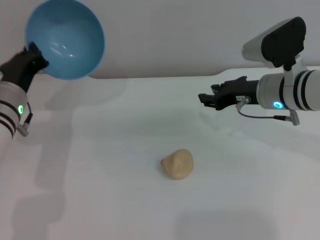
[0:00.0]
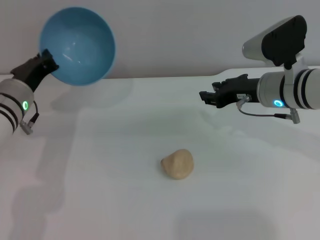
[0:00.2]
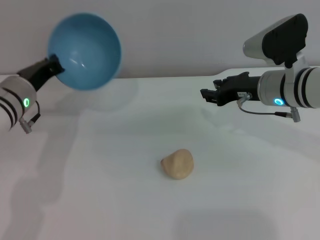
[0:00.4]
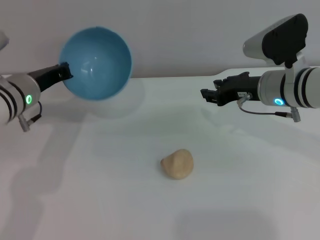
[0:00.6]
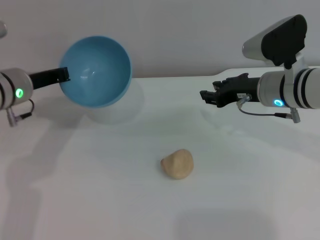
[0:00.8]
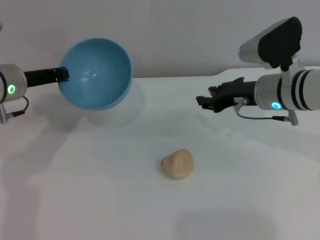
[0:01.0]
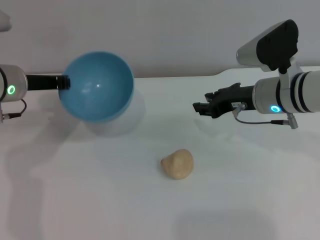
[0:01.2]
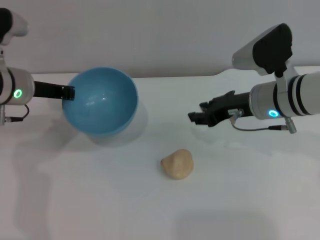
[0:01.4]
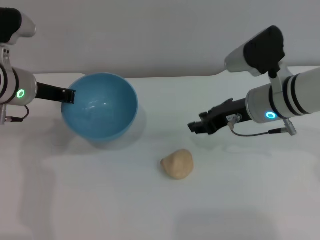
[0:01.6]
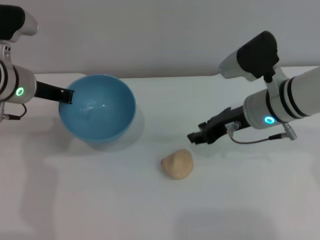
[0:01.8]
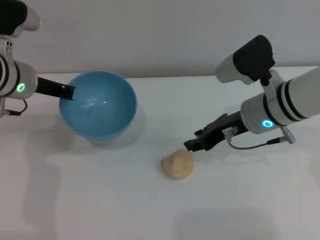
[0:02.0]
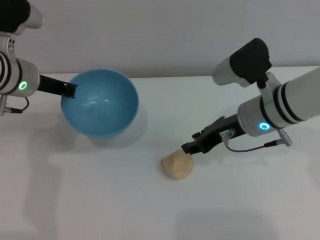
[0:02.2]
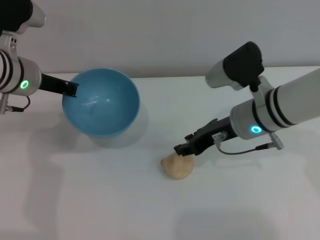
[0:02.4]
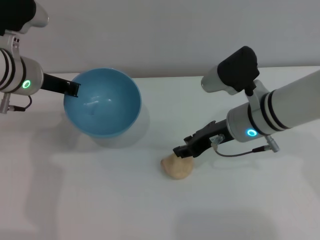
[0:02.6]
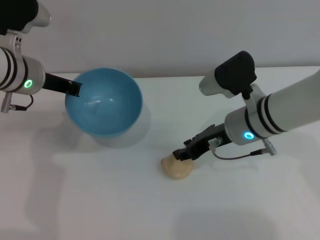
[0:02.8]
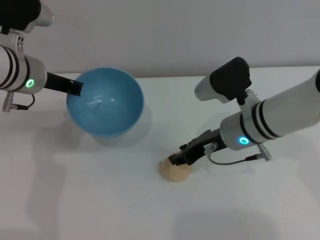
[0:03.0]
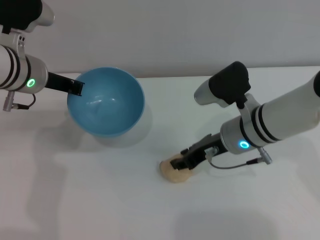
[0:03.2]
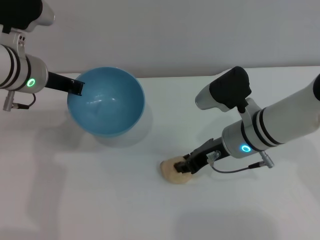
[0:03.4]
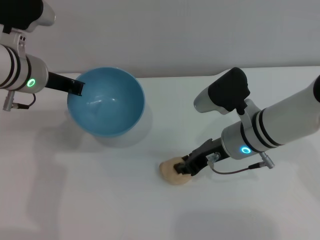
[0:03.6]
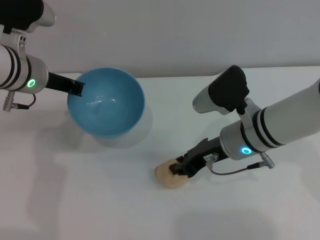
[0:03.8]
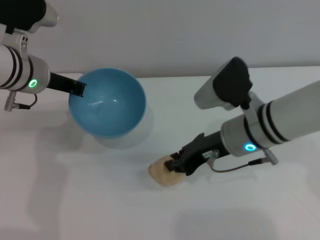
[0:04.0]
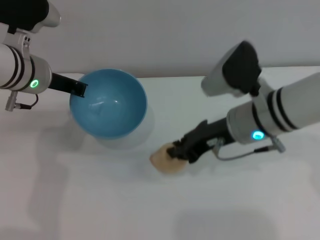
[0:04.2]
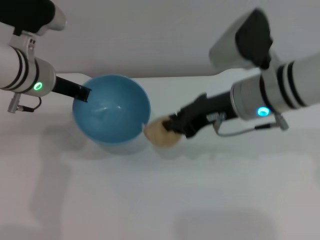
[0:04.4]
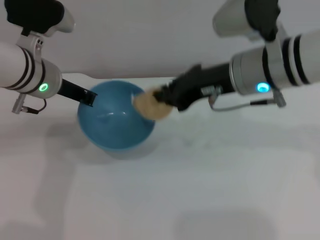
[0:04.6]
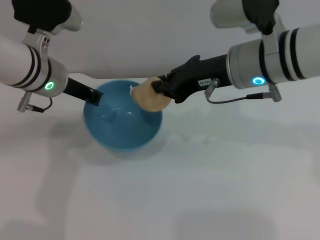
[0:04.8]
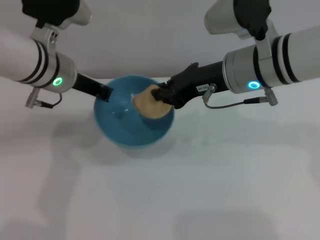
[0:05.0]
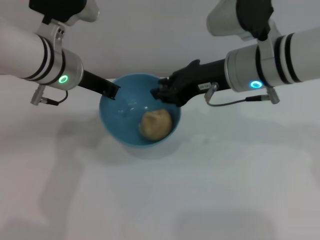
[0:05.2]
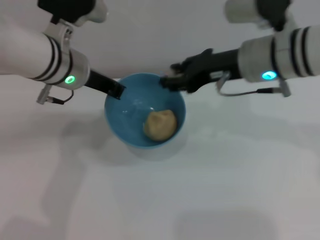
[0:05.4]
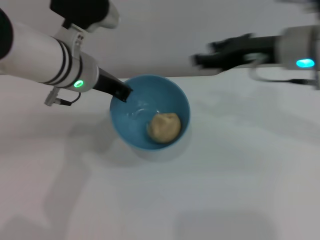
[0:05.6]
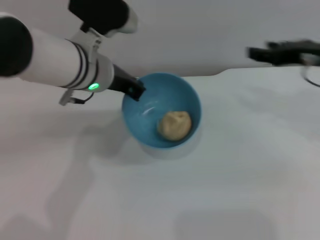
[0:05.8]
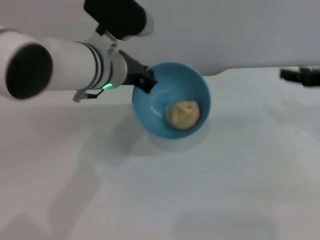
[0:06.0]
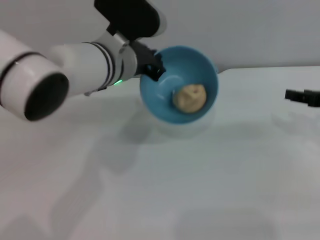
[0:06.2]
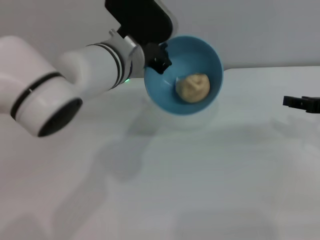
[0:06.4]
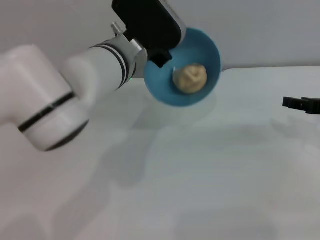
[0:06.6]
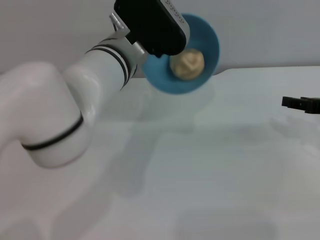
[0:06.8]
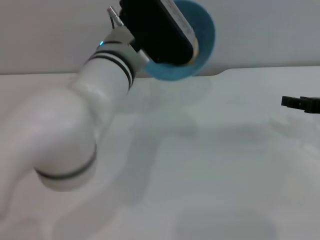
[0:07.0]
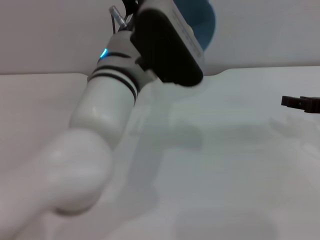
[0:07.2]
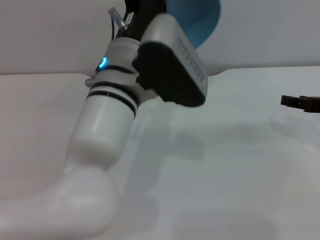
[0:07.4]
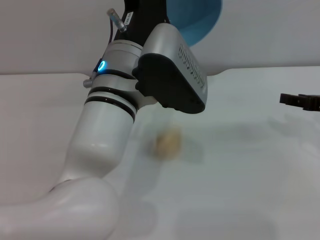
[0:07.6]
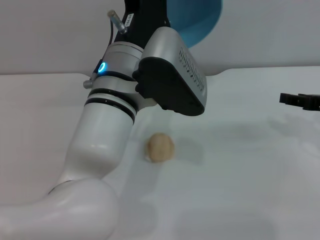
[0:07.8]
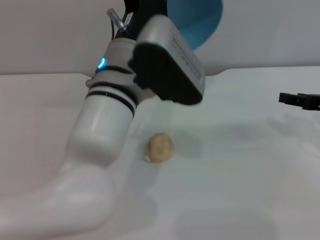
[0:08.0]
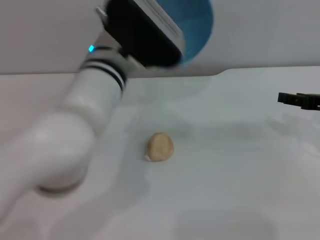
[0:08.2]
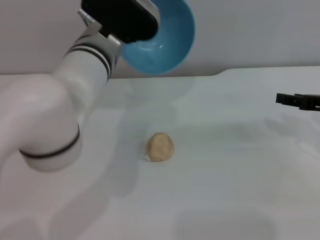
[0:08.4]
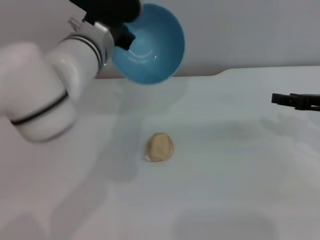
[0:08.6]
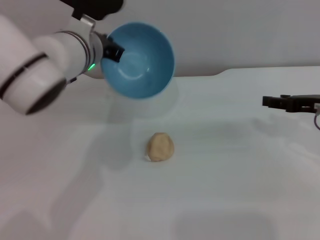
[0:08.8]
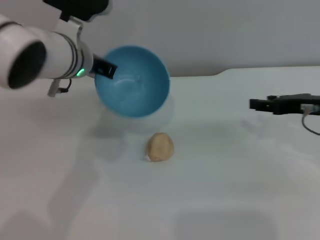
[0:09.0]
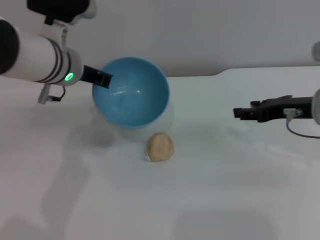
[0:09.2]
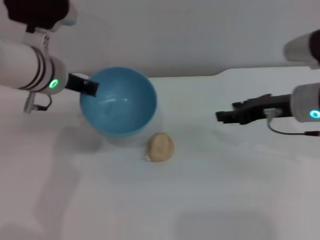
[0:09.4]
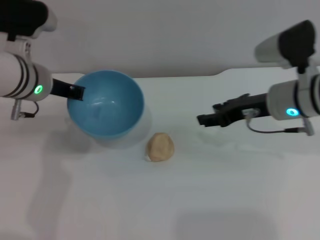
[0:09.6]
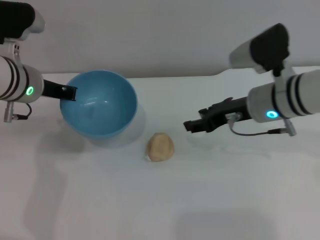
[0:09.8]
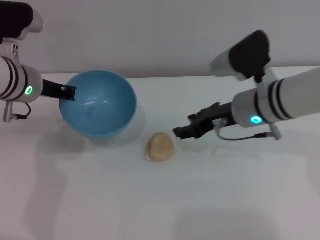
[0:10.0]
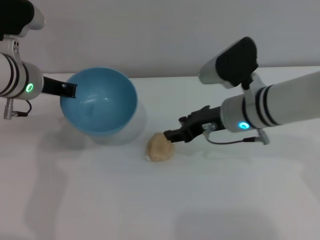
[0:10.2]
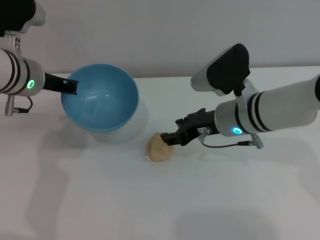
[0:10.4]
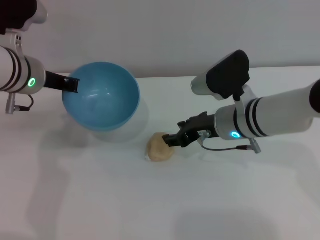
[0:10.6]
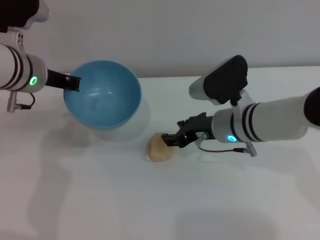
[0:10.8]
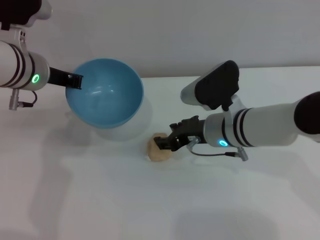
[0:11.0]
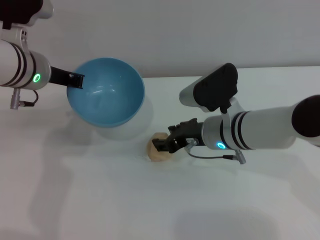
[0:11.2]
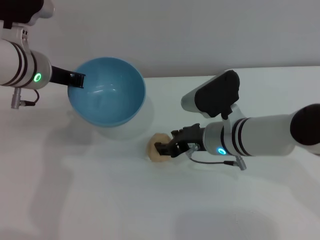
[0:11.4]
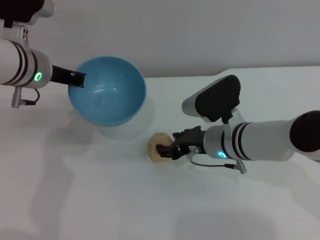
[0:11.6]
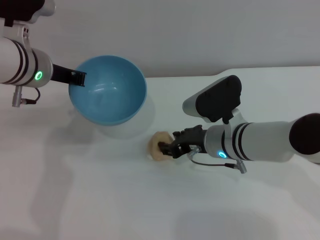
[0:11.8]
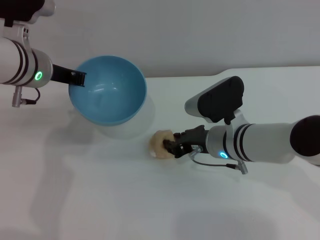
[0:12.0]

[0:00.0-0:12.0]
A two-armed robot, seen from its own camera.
Task of the whole recording: put the egg yolk pastry into the blue bowl and pour it out repeatedly.
Step, 0:00.0 to 0:04.2: Pick up the egg yolk pastry with the right gripper.
Step, 0:04.6 to 0:05.4: Place the egg yolk pastry into the bowl.
Step, 0:05.6 to 0:08.0: Pour the egg yolk pastry out of bowl.
0:00.0 to 0:01.6: The left gripper travels upward by roughly 5 cm.
0:01.6 to 0:03.0: The right gripper ends up roughly 5 cm from where it was.
0:03.0 to 0:04.4: The right gripper heads upward, covering about 10 cm, and closes.
0:04.4 to 0:06.0: The left gripper shifts about 10 cm to the right. Meanwhile the right gripper moves to the right, about 20 cm, and opens its fingers.
0:06.0 to 0:07.6: The left gripper heads backward, covering approximately 5 cm.
0:07.6 to 0:09.0: The left gripper goes roughly 10 cm forward and to the left.
0:09.0 to 0:10.4: The right gripper is displaced to the left by roughly 15 cm. Meanwhile the left gripper is displaced to the left by roughly 5 cm.
0:10.4 to 0:12.0: The right gripper heads downward, covering approximately 5 cm.

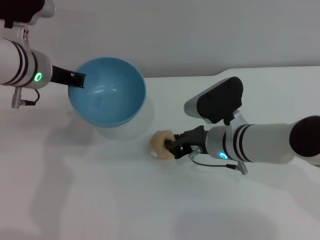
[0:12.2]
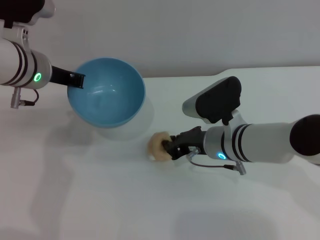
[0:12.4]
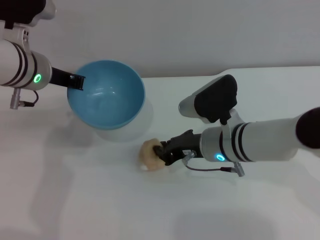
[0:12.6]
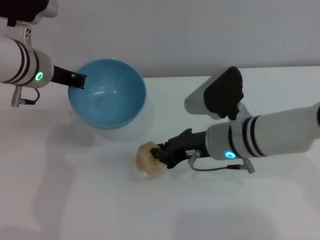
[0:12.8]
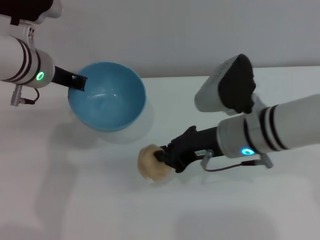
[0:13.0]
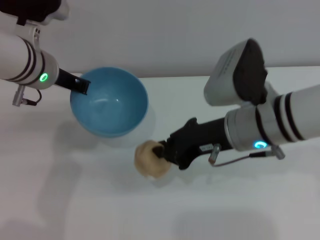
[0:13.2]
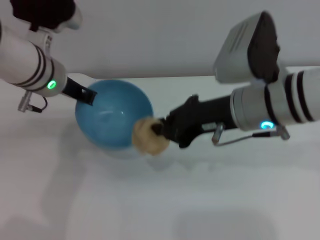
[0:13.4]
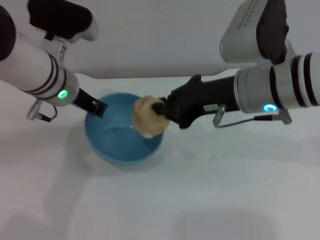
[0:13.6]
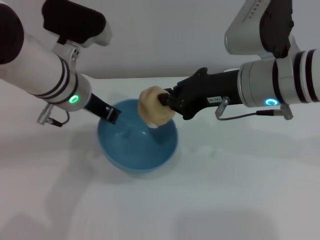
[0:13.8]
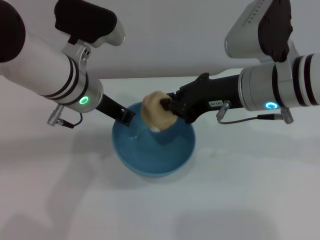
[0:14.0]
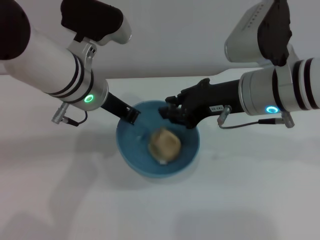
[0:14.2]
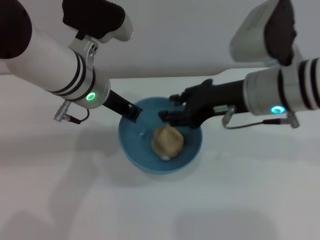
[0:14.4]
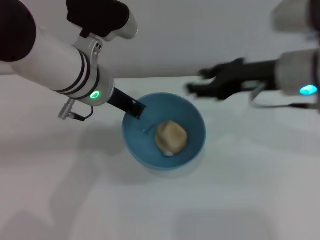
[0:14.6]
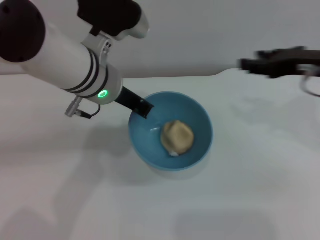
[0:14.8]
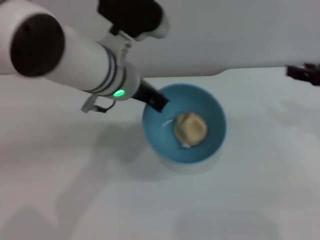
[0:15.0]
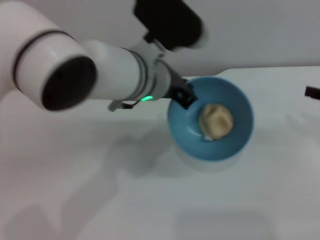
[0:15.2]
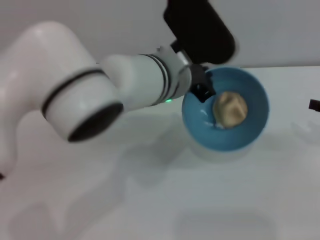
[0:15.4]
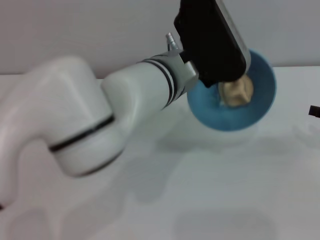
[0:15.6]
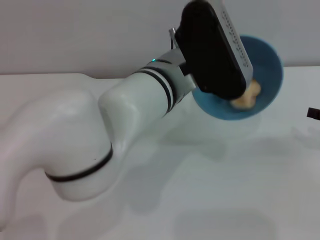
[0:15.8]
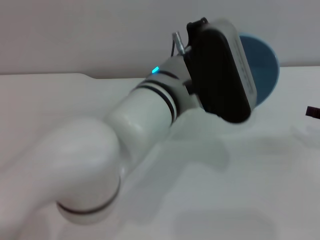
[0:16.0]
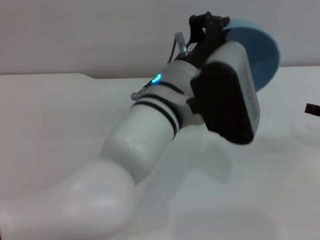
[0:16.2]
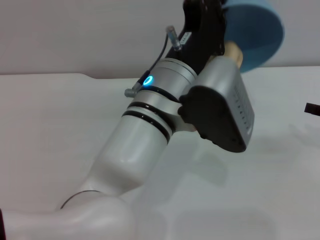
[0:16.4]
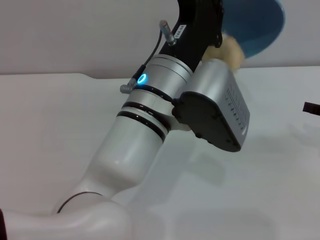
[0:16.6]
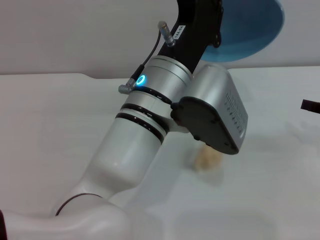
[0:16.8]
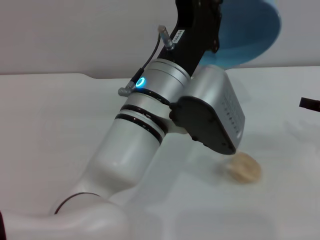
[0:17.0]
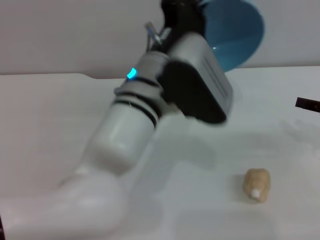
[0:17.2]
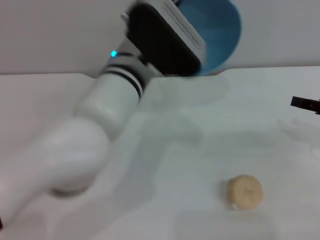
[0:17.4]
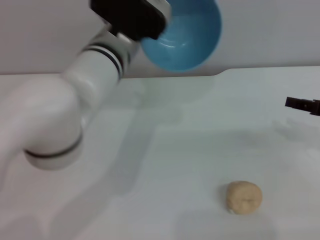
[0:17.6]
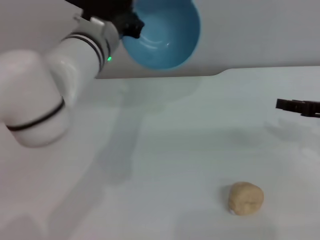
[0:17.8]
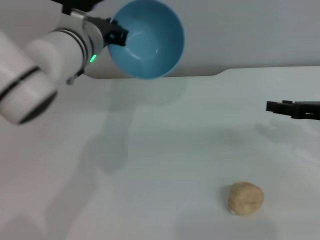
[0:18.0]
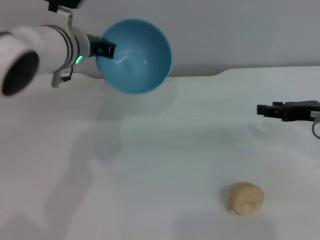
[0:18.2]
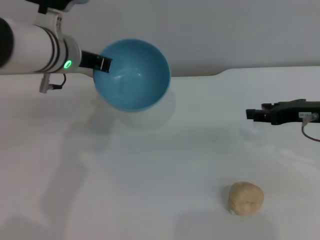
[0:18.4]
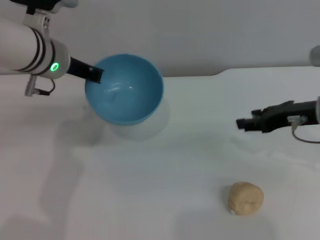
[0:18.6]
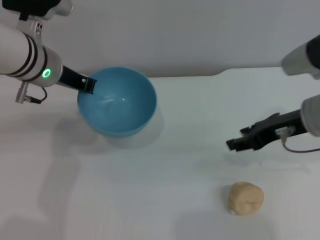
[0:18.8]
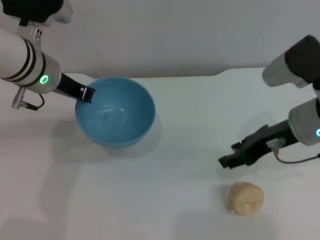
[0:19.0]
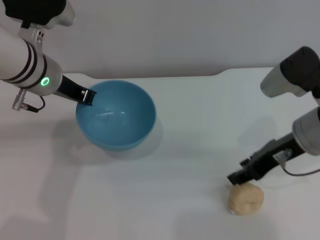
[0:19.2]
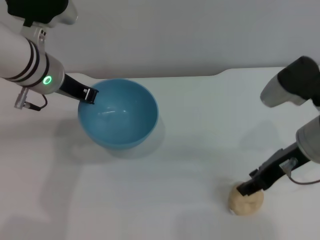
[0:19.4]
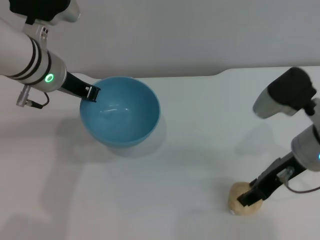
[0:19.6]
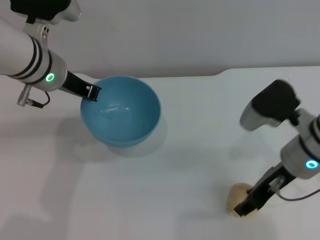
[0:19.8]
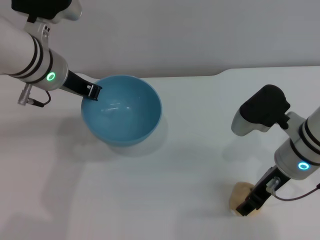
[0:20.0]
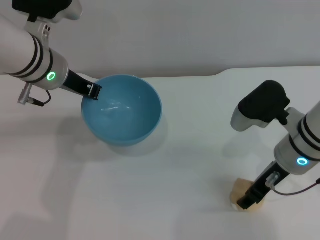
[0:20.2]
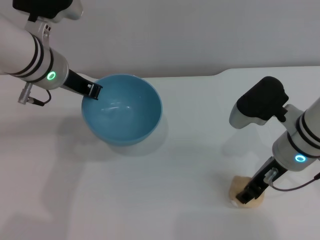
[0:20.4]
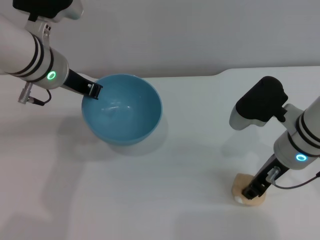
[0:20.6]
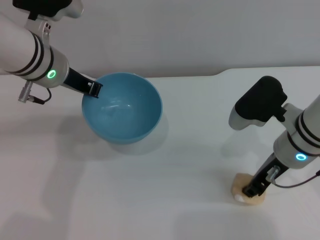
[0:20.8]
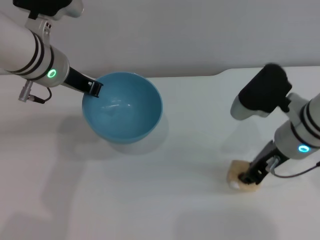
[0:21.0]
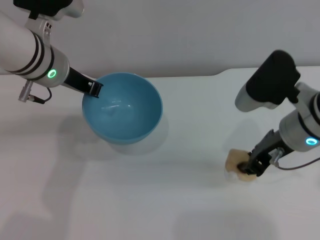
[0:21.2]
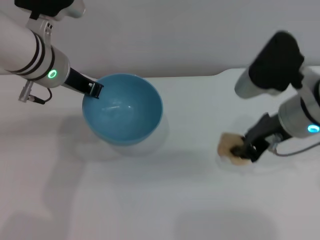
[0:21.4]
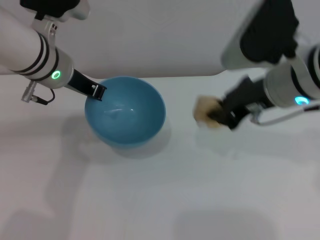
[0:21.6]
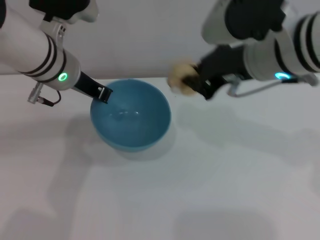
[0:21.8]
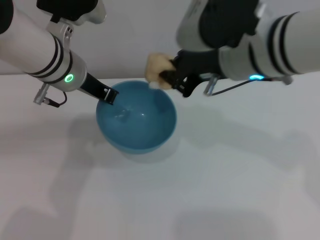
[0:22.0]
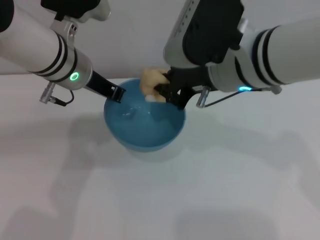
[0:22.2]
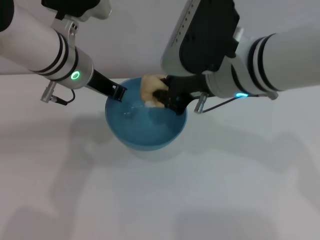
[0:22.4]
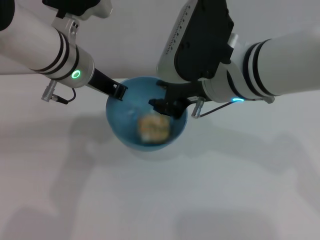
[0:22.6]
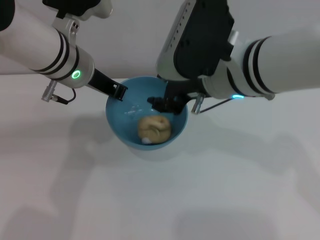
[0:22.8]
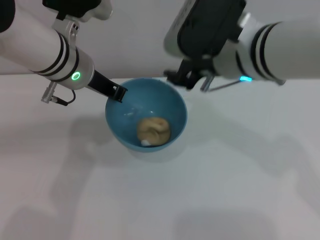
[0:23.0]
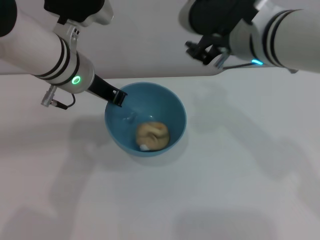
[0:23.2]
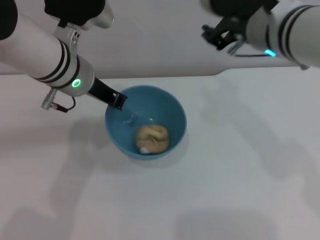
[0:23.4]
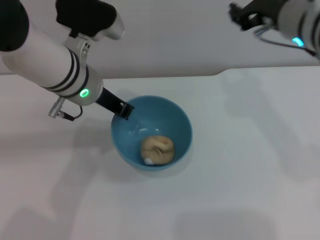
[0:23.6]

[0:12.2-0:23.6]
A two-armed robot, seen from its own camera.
Task of the whole recording: put the egg yolk pastry into the blue bowl and pour it out repeatedly.
Step, 0:13.0 to 0:14.6: Place the egg yolk pastry into the bowl.
Step, 0:14.8 to 0:17.6: Pour the egg yolk pastry out of bowl.
Step, 0:17.8 to 0:21.2: Pick up the egg yolk pastry with the right gripper.
Step, 0:21.4 to 0:22.8: Place the egg yolk pastry into the bowl.
0:12.2 to 0:13.6: The right gripper shifts approximately 15 cm upward, and closes its fingers.
0:13.6 to 0:15.0: The right gripper is displaced to the right by roughly 20 cm, and opens, while the left gripper moves to the right, roughly 10 cm.
0:15.0 to 0:16.4: The left gripper goes some 10 cm backward and to the right, while the right gripper is displaced downward by about 5 cm.
0:16.4 to 0:17.8: The left gripper travels forward and to the left by roughly 15 cm.
0:17.8 to 0:19.4: Both grippers move to the left, about 10 cm.
0:19.4 to 0:20.8: The grippers stay close to where they were, moving slightly.
0:20.8 to 0:22.2: The right gripper heads upward and to the left, covering roughly 15 cm, and closes.
0:22.2 to 0:23.6: The right gripper heads to the right, covering some 5 cm, and opens its fingers.
